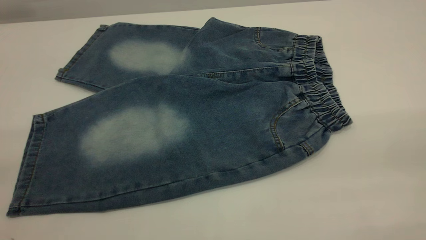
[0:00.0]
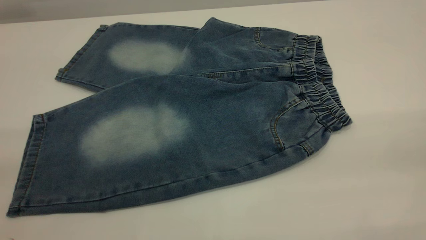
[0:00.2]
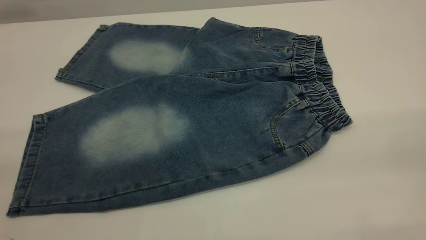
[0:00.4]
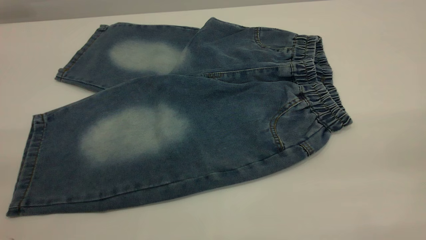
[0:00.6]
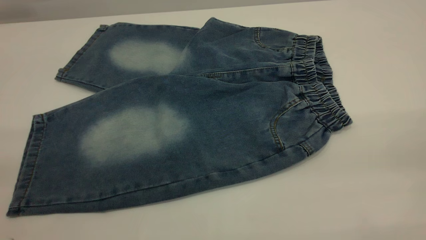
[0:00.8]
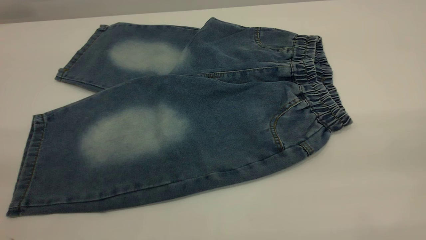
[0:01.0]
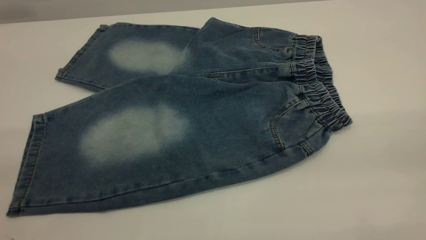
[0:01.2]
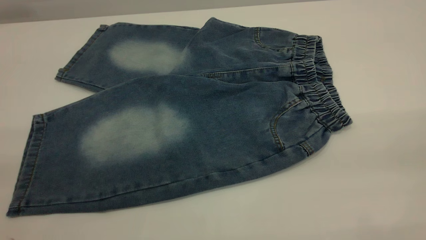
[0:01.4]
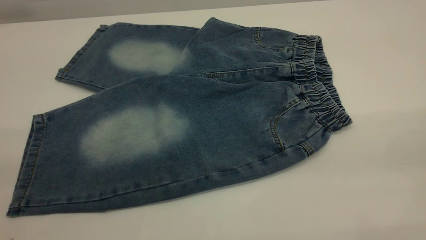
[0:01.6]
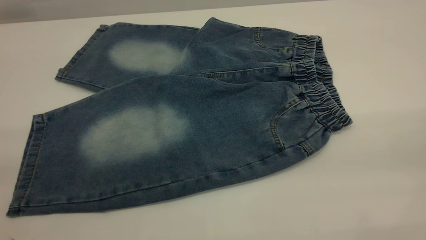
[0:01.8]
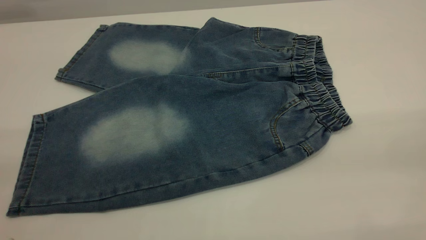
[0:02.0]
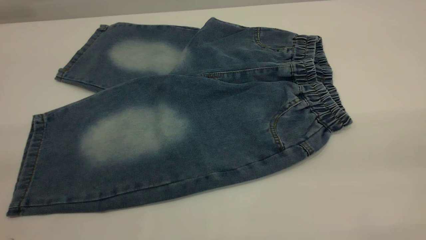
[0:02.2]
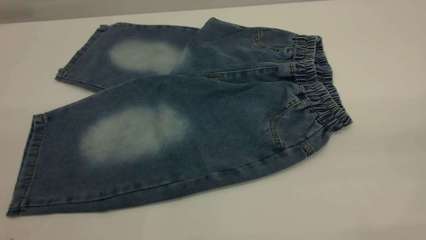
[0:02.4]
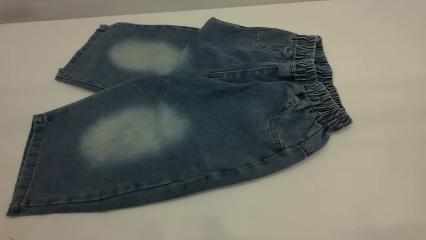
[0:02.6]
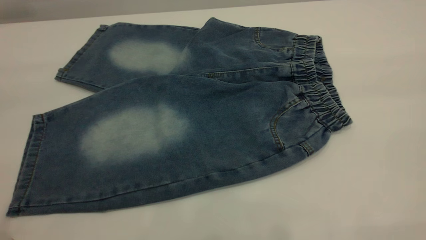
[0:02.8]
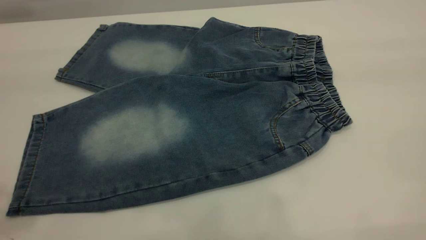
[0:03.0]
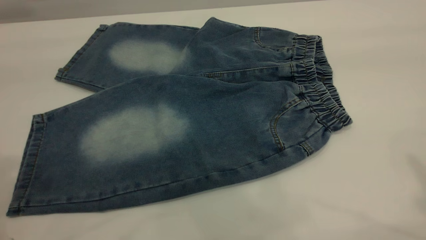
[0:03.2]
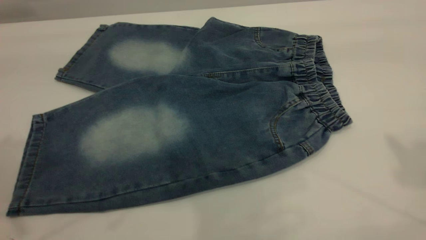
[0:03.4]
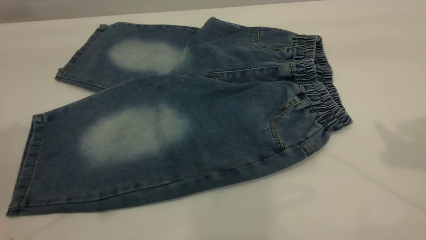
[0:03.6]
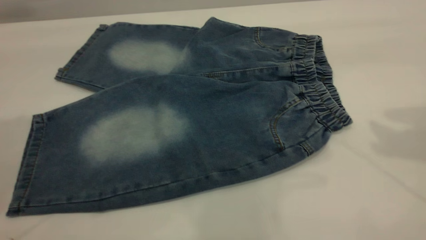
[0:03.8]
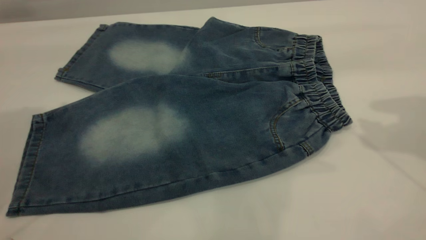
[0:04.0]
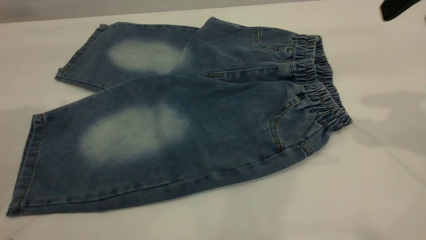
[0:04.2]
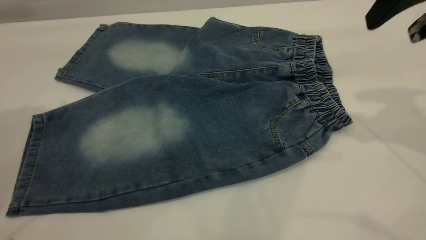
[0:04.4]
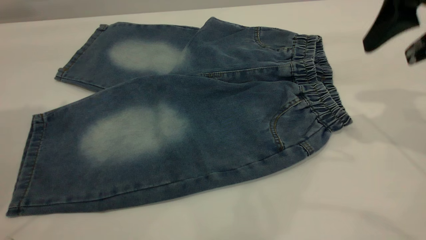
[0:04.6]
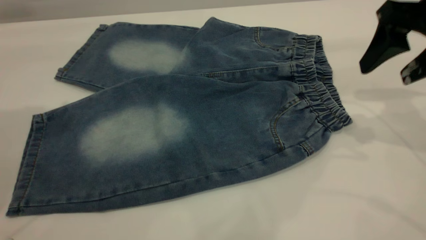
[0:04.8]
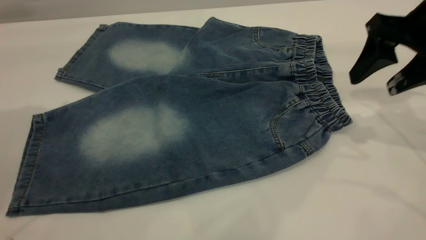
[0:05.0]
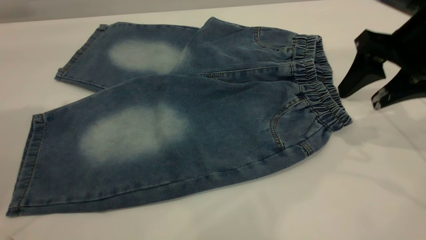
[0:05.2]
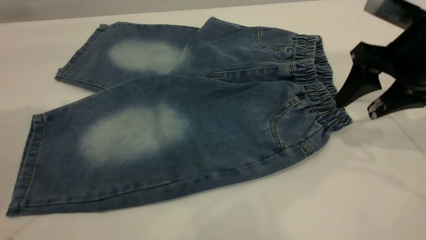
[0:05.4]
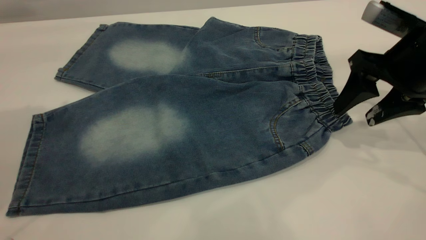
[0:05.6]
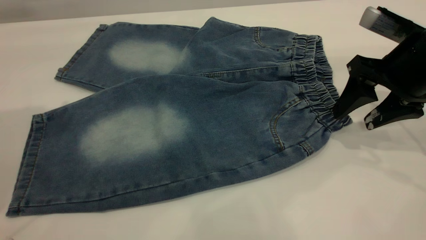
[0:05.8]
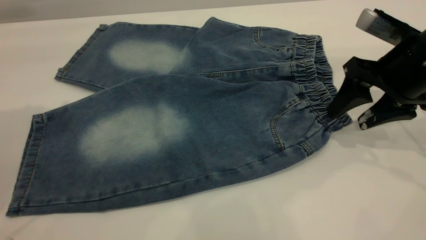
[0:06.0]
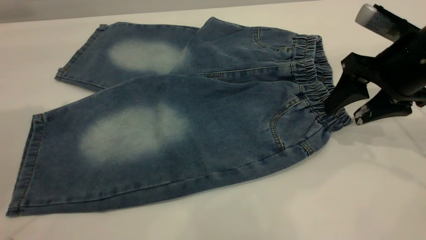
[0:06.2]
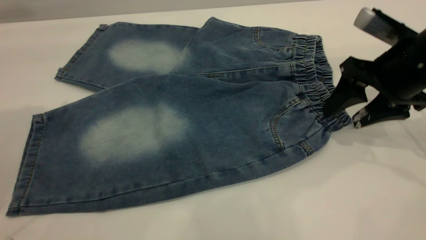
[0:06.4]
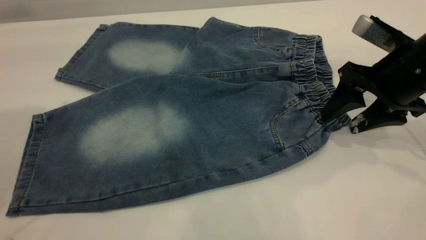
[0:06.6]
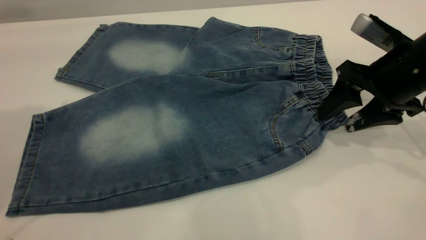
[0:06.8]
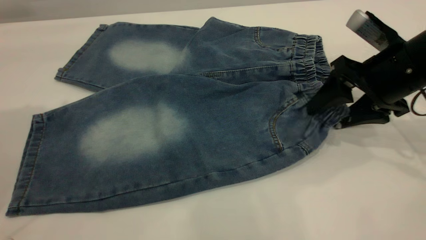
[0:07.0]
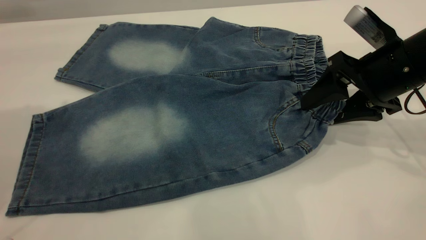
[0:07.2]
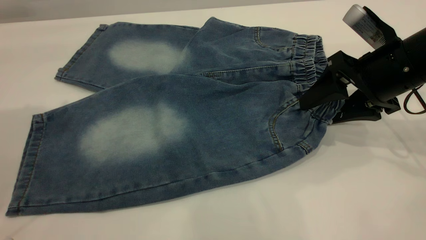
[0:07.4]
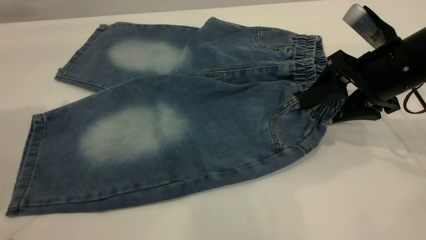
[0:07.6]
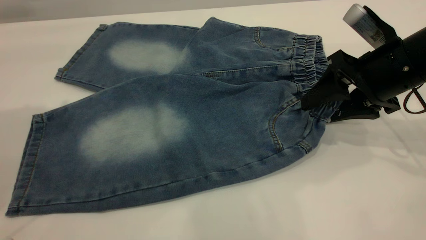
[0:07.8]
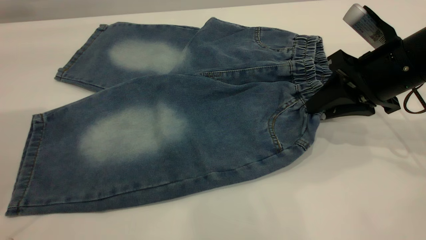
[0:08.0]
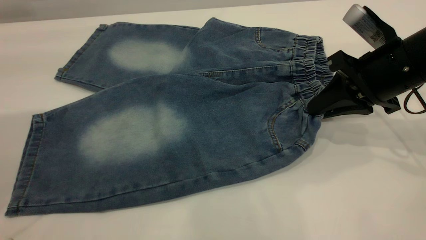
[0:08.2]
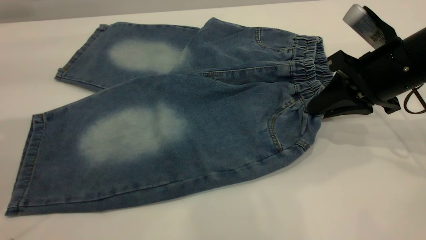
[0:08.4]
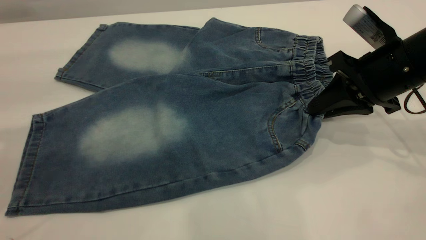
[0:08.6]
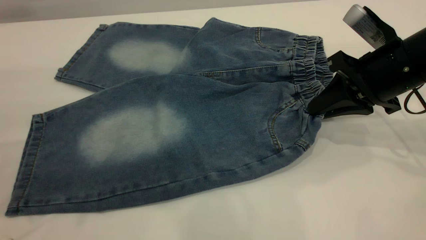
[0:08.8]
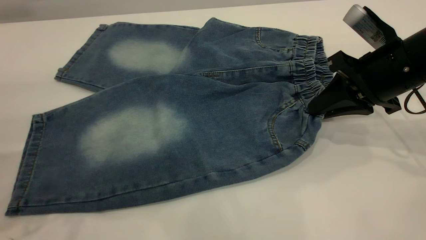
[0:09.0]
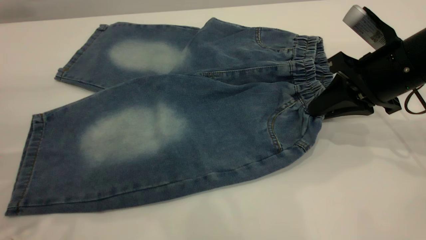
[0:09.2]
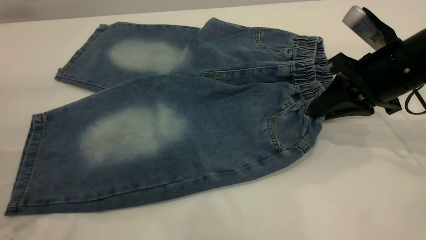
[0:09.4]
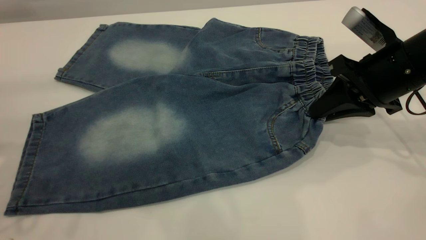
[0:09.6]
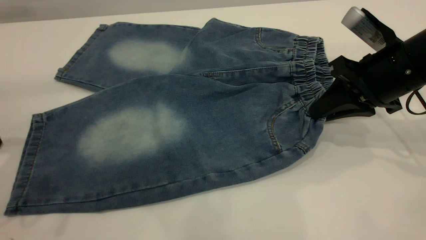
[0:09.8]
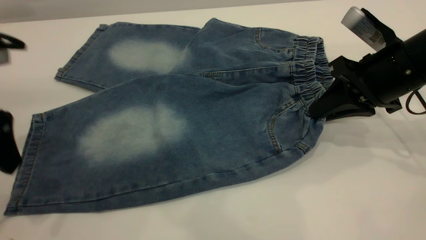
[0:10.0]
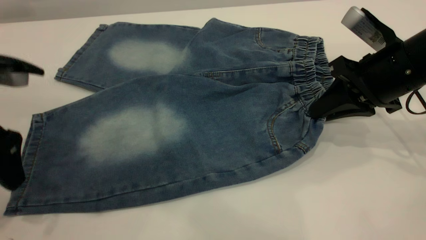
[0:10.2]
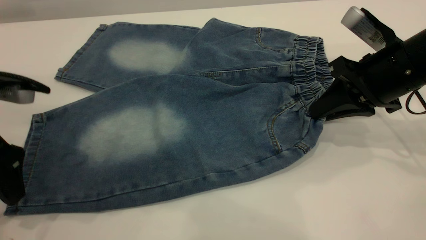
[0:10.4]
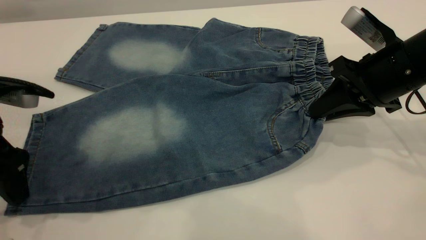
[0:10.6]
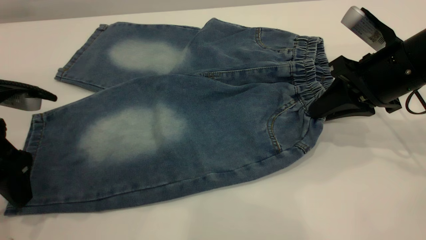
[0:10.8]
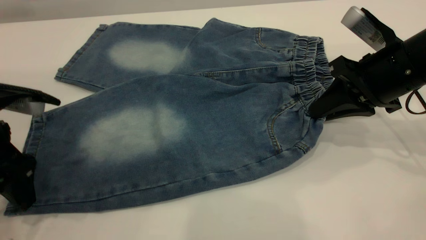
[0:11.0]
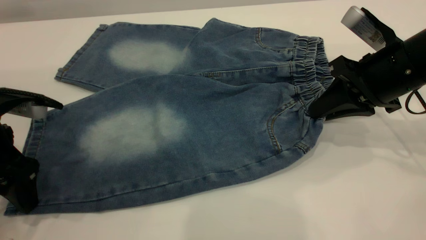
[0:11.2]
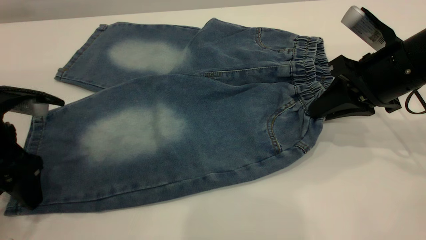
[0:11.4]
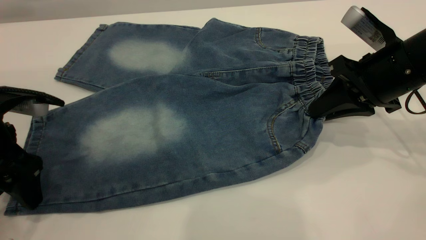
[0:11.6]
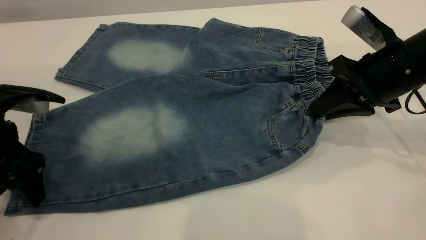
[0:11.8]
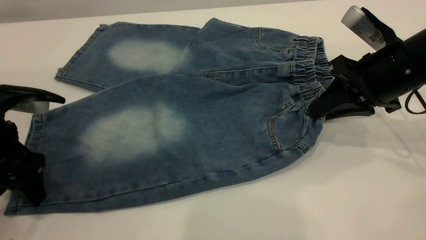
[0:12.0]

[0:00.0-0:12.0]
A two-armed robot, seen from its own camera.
0:00.0 to 0:01.6: Both grippers stay put.
0:03.0 to 0:04.4: The right gripper goes roughly 25 cm downward and forward.
0:04.4 to 0:06.0: The right gripper shifts roughly 15 cm downward.
0:06.0 to 0:07.6: The grippers stay close to where they were, moving slightly.
0:07.6 to 0:09.0: The right gripper closes.
0:09.0 to 0:10.4: The left gripper moves downward, approximately 10 cm.
0:10.4 to 0:12.0: The grippers make only small movements.

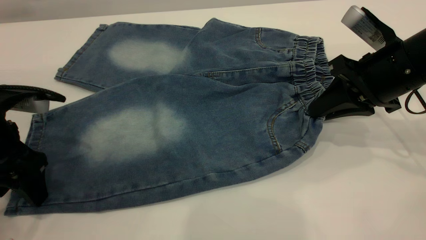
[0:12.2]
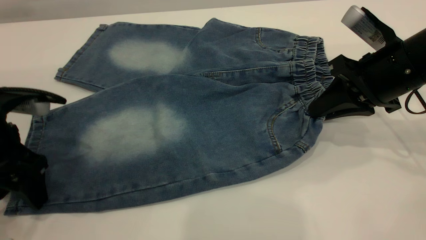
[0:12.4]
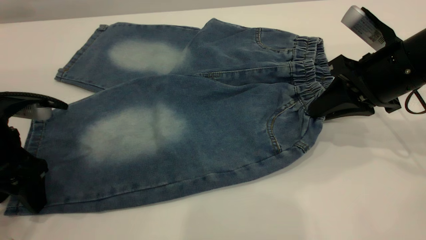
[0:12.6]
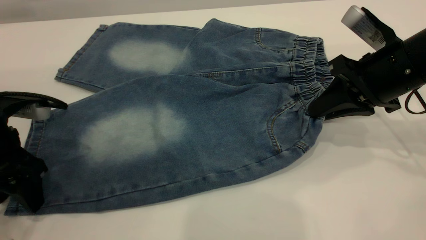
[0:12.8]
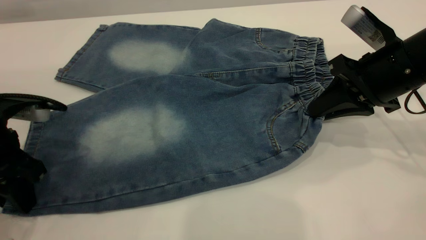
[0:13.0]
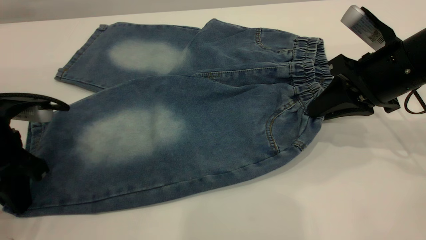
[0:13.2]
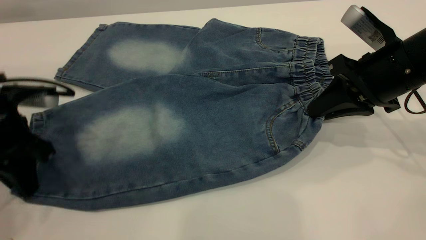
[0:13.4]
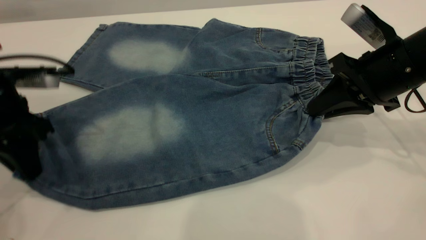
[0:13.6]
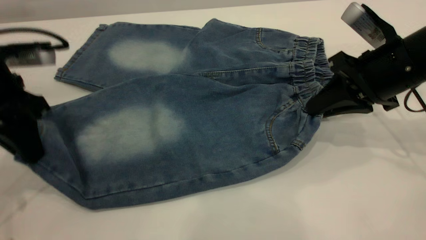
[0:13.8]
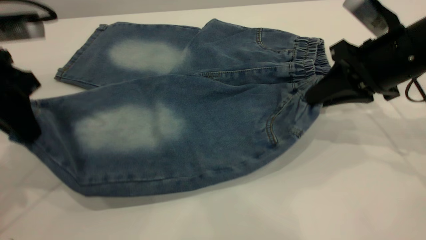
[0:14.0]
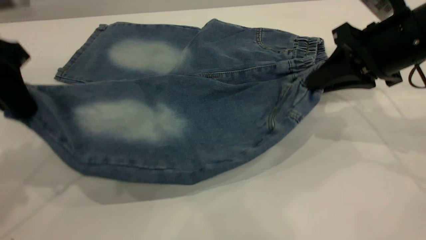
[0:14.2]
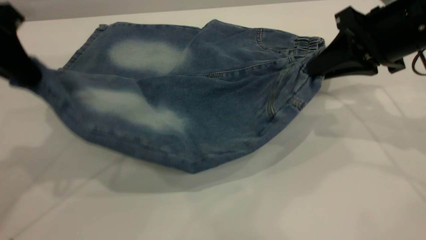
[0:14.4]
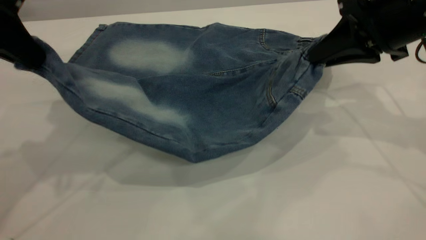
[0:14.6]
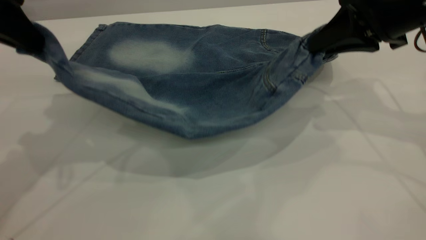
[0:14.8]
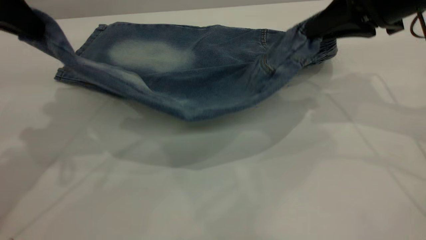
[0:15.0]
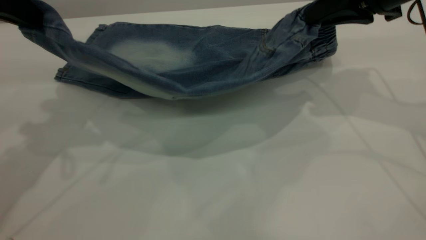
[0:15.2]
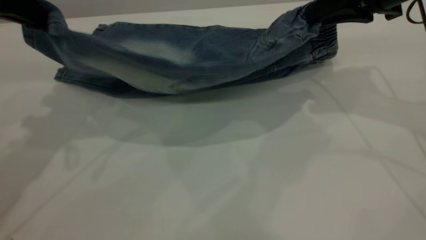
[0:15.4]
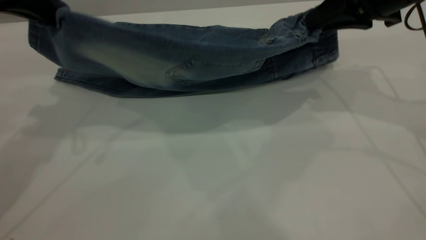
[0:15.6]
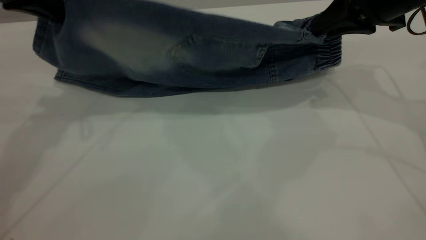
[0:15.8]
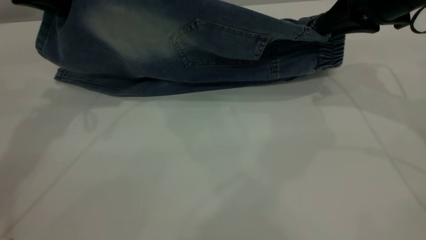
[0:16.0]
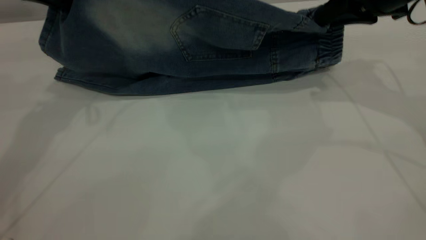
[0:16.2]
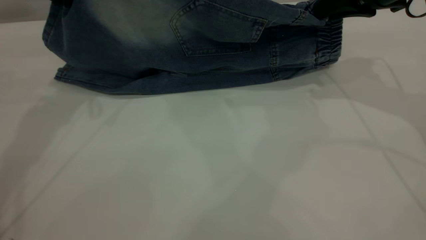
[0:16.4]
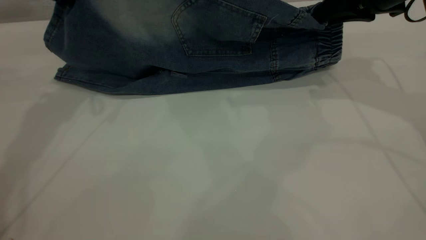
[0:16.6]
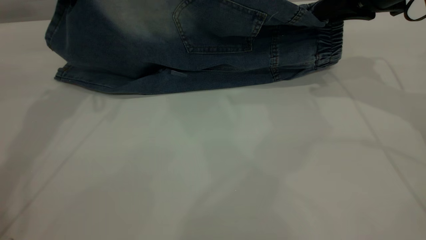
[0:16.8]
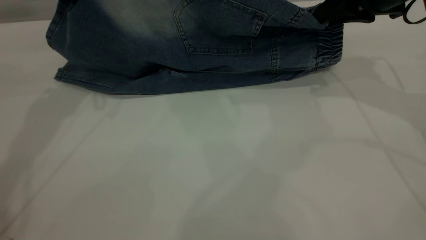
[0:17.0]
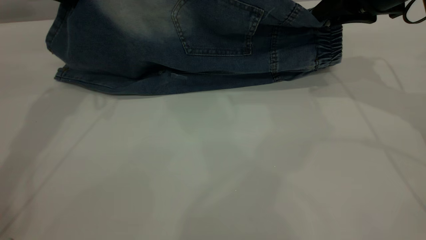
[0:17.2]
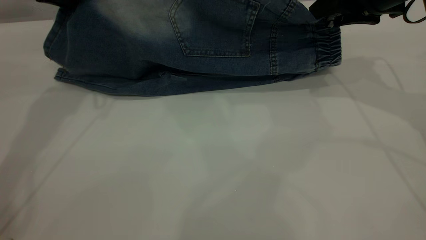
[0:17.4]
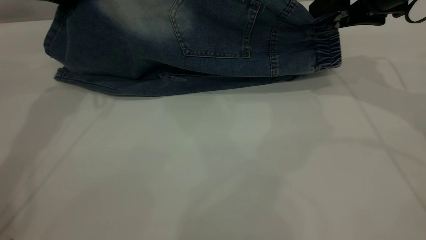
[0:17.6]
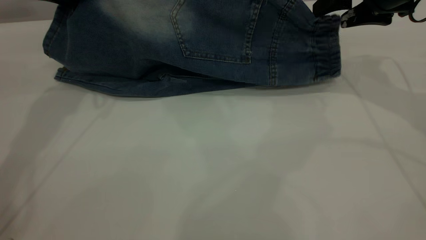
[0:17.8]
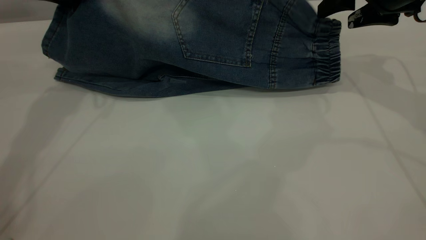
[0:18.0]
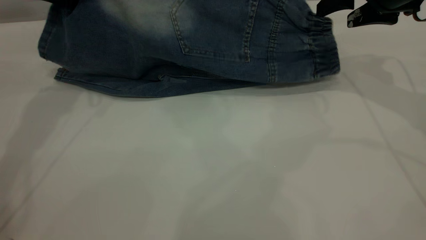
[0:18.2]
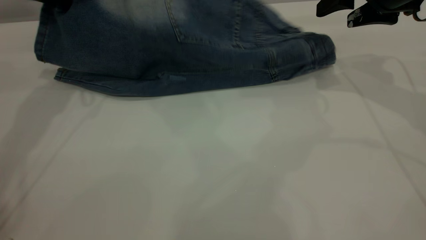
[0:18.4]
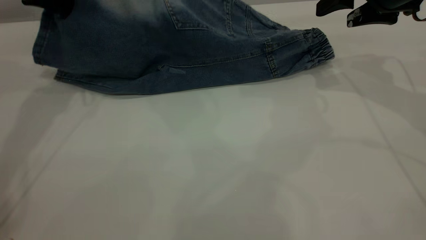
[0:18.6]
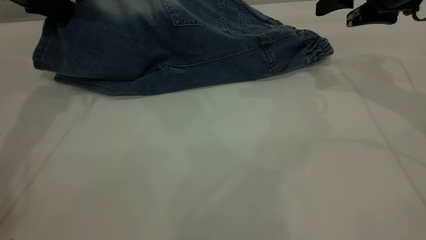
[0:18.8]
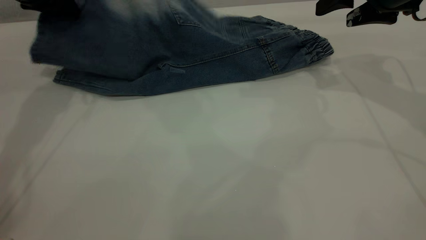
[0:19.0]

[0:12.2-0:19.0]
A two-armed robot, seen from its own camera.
0:12.2 to 0:13.6: The left gripper closes up.
0:13.6 to 0:15.0: The grippers both shift upward by about 10 cm.
0:15.0 to 0:16.2: The left gripper goes approximately 10 cm forward.
0:16.2 to 0:17.6: The right gripper opens its fingers.
0:17.6 to 0:19.0: The left gripper opens up.
